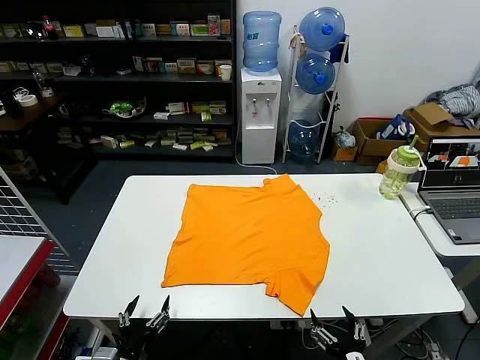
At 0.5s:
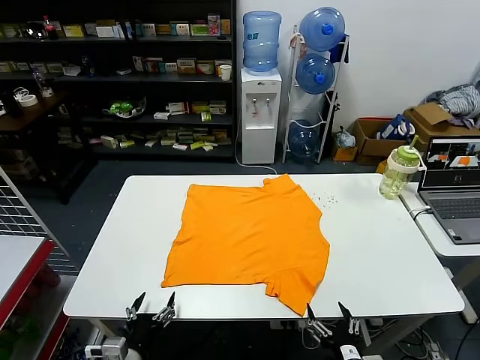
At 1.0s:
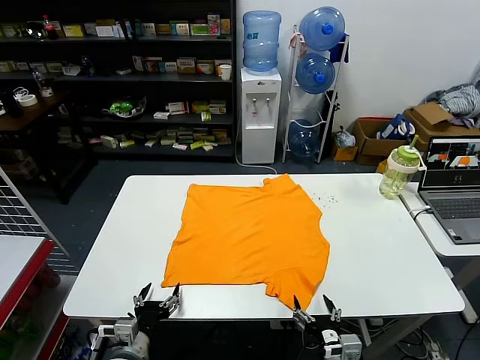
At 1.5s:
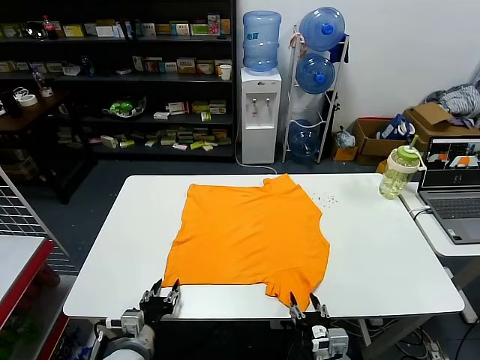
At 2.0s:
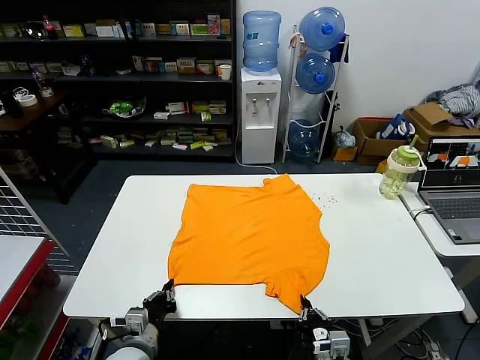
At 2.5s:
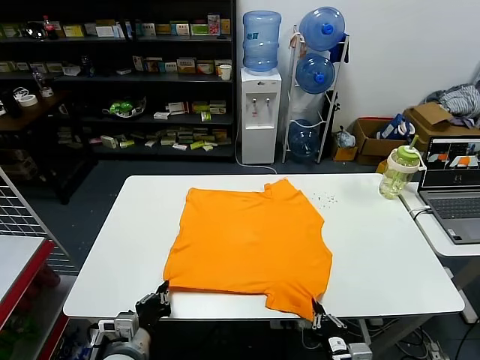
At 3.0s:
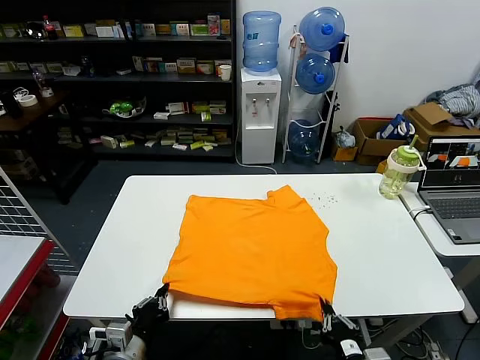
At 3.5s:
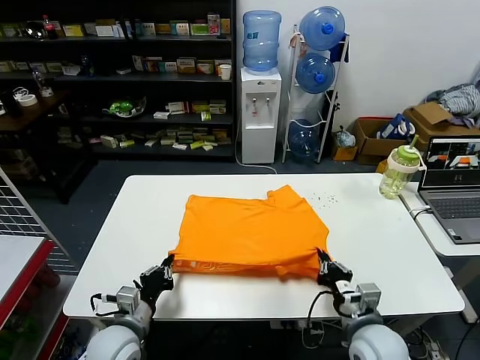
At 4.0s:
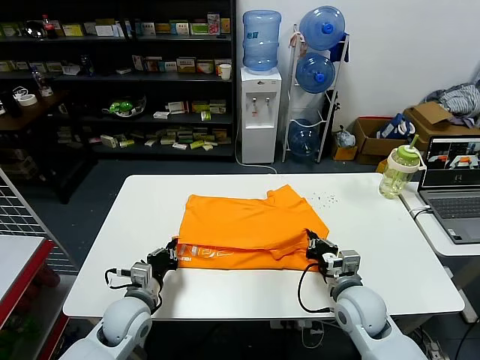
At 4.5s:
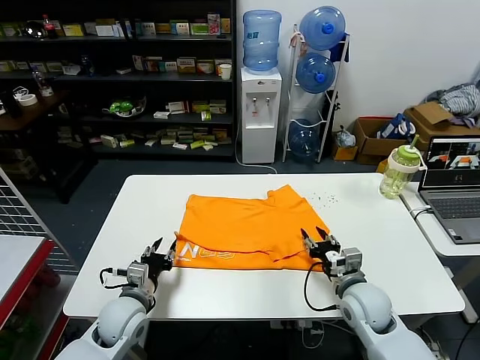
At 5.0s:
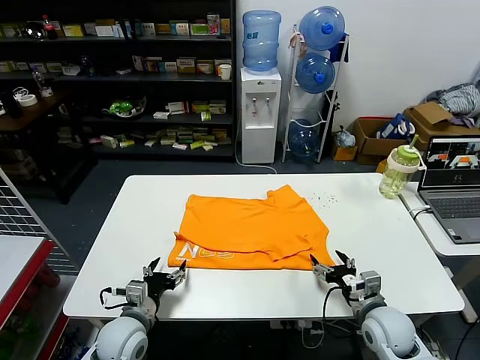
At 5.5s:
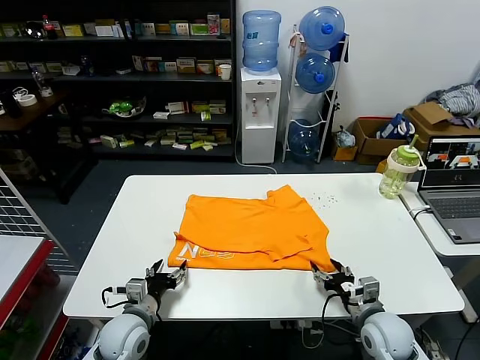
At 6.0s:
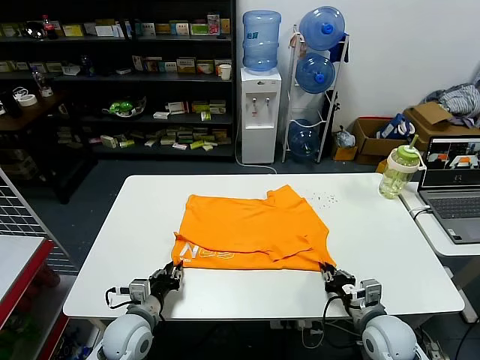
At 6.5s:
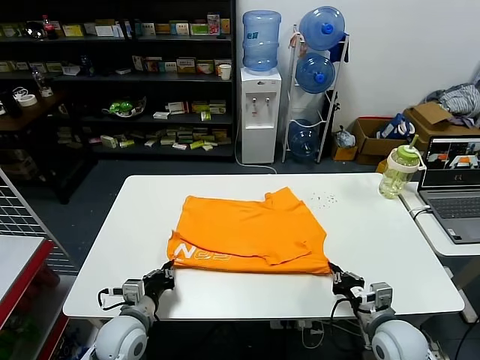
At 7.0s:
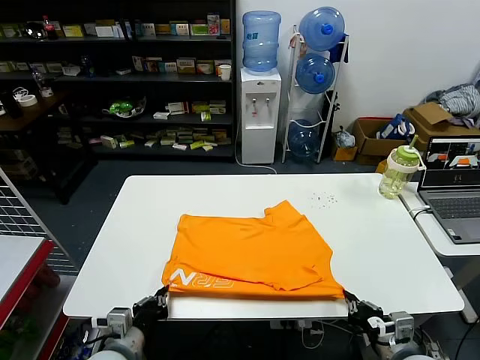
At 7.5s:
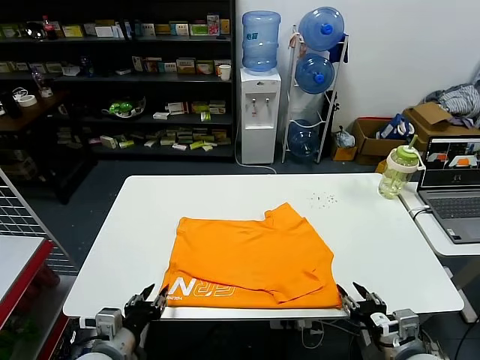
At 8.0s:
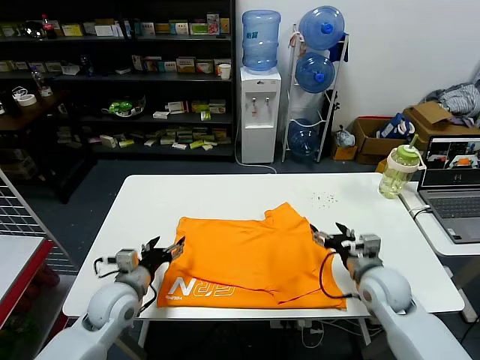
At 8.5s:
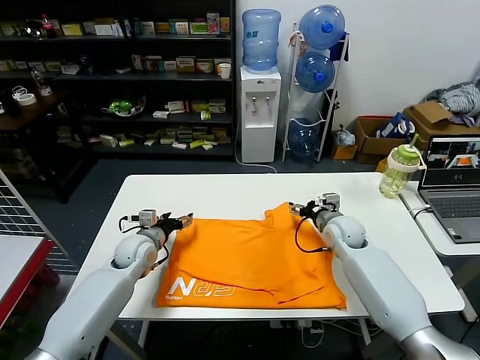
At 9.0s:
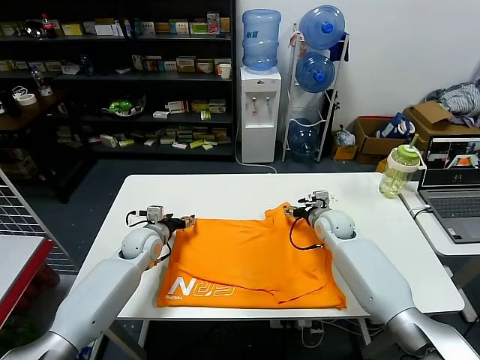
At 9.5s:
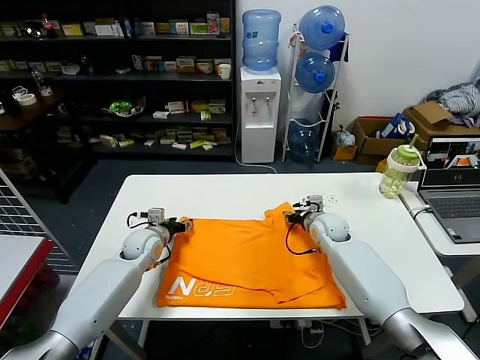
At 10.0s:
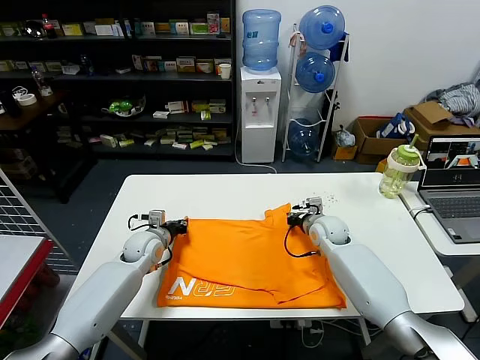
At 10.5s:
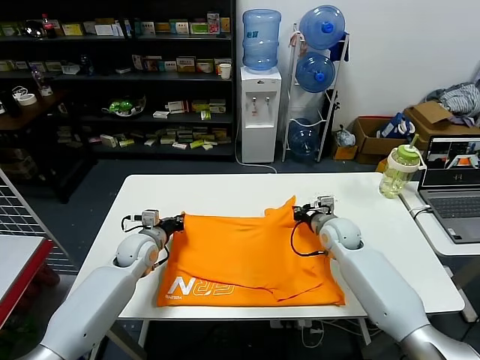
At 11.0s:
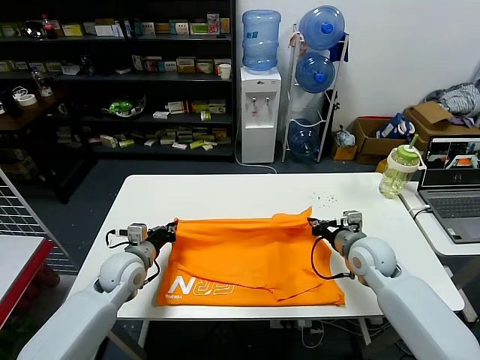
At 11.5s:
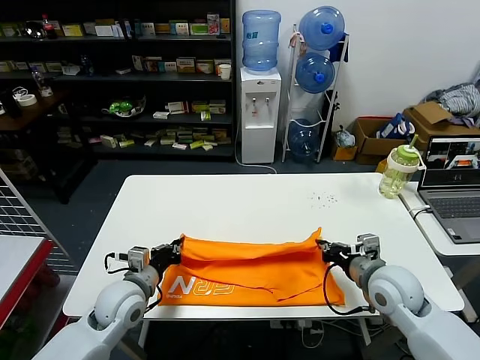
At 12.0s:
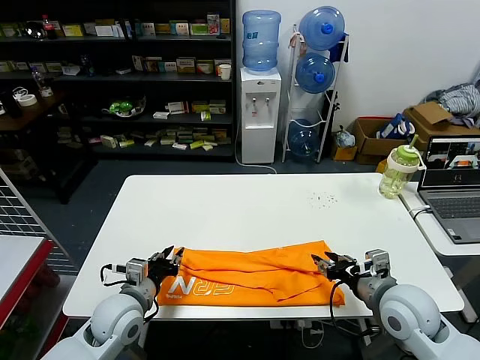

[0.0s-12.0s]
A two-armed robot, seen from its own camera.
Task of the whole recording: fold and organize the clothes.
Step, 0.0s to 2.0s: use both grippers simultaneously to clamp the lower edge of the clothing fabric.
Step, 2.5s to 4.0s: use both grippers to drag the lower edge of the fabric forward and fold it over the upper edge.
Step, 4.5s to 7.0s: Drag the clothes downward with both gripper.
Step, 7.5s to 10.0s: use both grippers simultaneously to clamp the upper edge of the clothing fabric.
Step, 10.5s to 11.5s: use both grippers to drag the upper edge of the fabric backward and fold it over the lower edge.
2.0s to 4.0s: The left gripper shifts some 10 cm forward. The right gripper moves forward and upward, about 15 cm.
4.0s to 6.0s: The left gripper opens. The right gripper heads to the right and backward, covering about 10 cm, and opens, then closes again.
6.0s to 8.0s: The left gripper shifts about 5 cm upward, moves about 10 cm backward and comes back, and opens its fingers. The right gripper goes approximately 10 cm forward and upward, and opens.
8.0s to 10.0s: The grippers both shift forward by about 15 cm. The right gripper closes up, while the left gripper closes its fingers.
10.0s to 12.0s: The two grippers go roughly 20 cm backward. The right gripper opens.

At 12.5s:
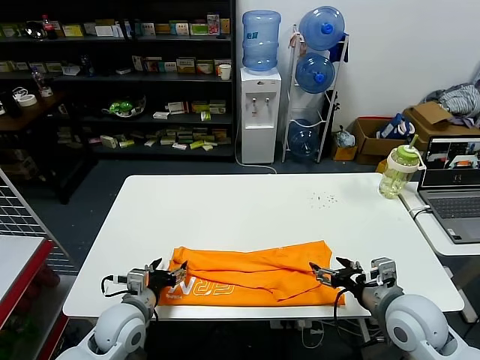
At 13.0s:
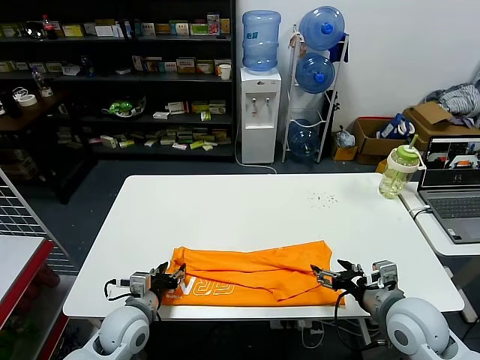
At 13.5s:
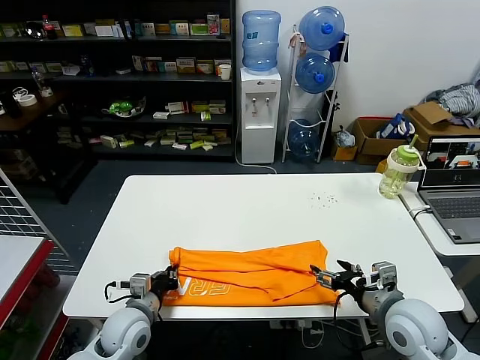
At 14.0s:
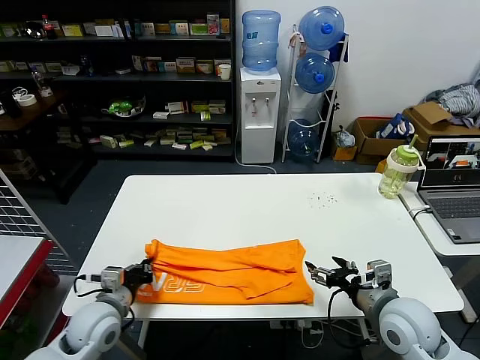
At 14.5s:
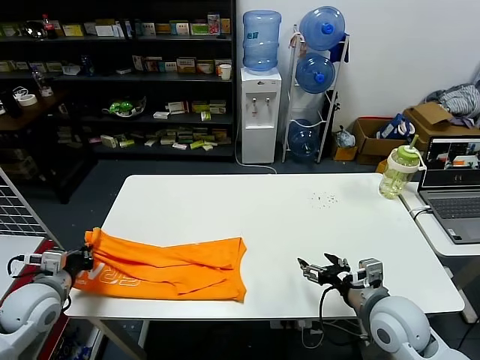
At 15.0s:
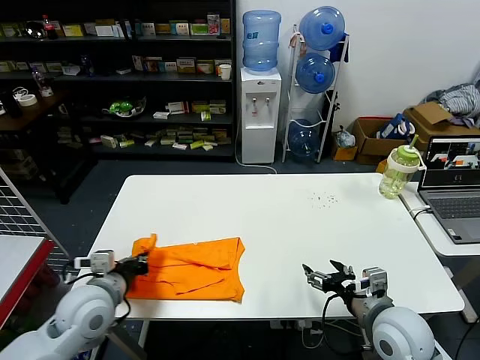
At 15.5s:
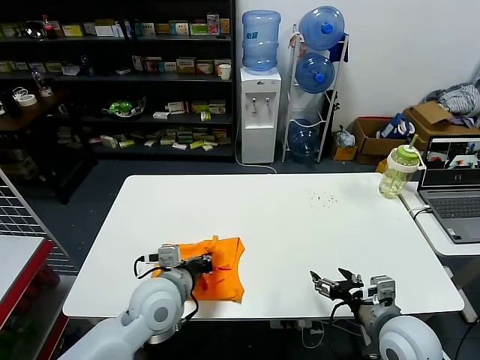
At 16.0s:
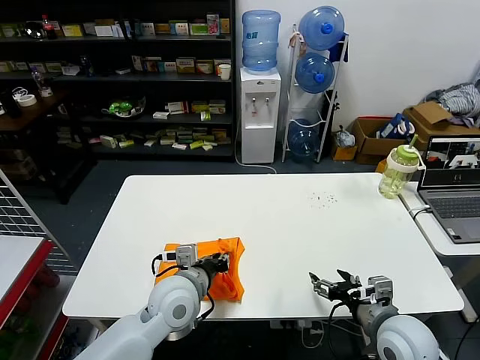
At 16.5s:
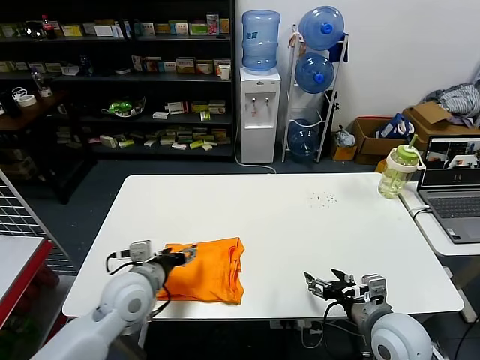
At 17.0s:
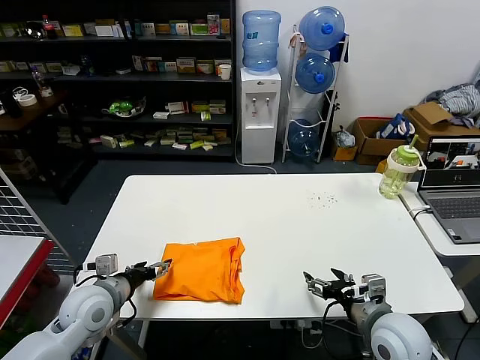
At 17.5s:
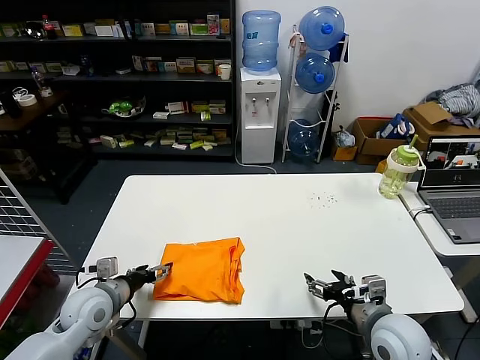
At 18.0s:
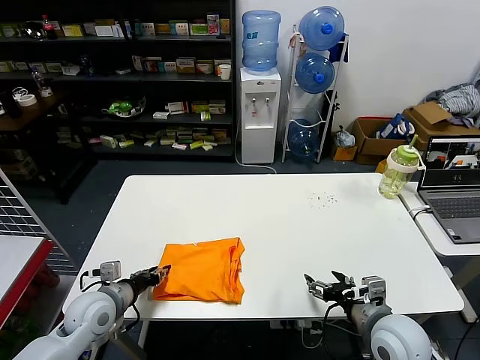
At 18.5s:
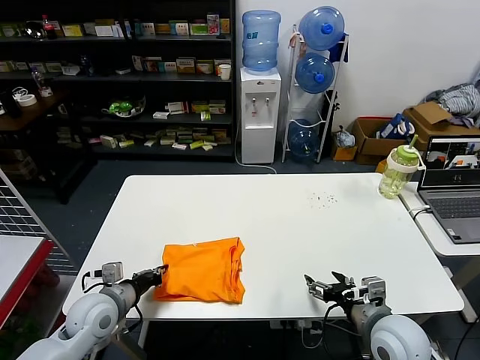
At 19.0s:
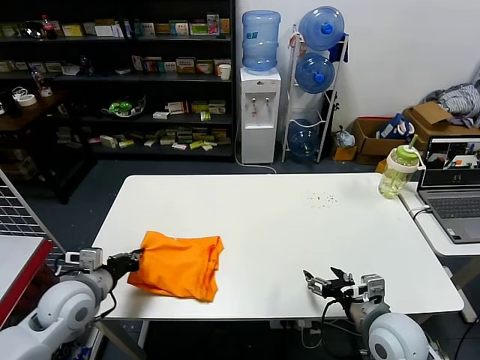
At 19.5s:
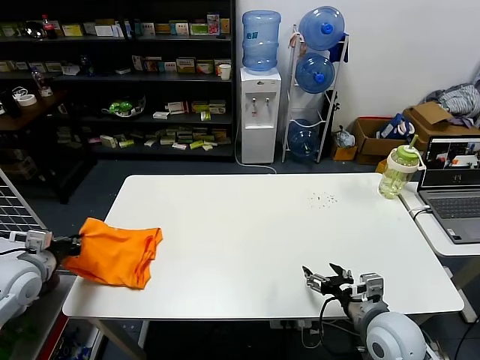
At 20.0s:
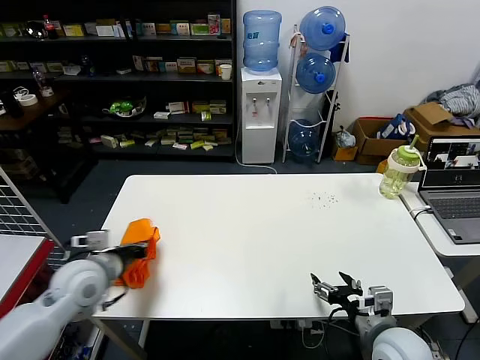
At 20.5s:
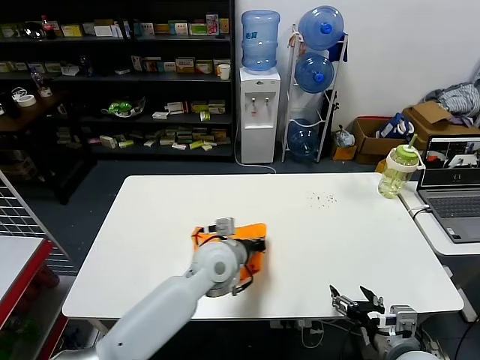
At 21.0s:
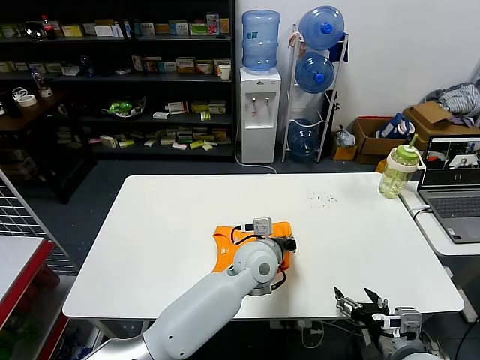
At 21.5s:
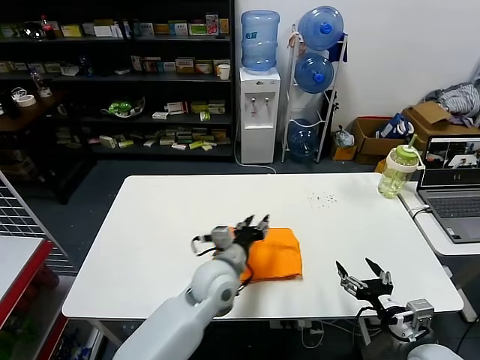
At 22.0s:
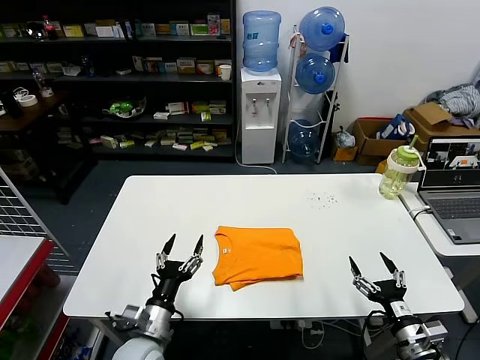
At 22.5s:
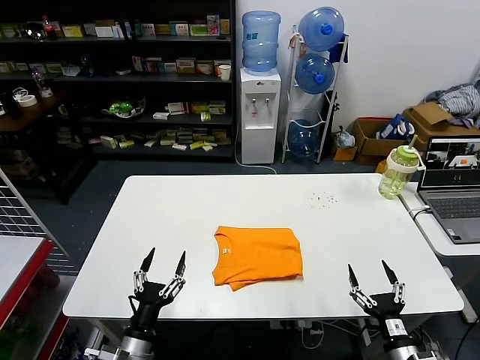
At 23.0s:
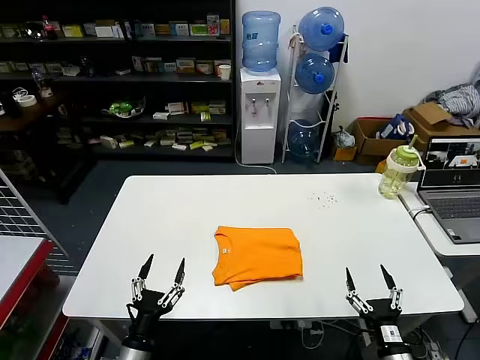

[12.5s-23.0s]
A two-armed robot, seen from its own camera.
Task of the whole recording: fold and organize the clothes.
Step, 12.5s to 13.5s: use the left gripper to clamp the left edge of the fabric.
Step, 14.0s to 16.0s: use the left gripper to drag the left edge of the fabric to the left and folds it over the right edge.
Step, 16.5s to 21.0s: Flip the folded clothes over with left gripper.
12.5s to 14.5s: The left gripper travels to the left and upward by roughly 15 cm, and closes up.
14.5s to 16.5s: The left gripper shifts about 20 cm to the right, and opens its fingers.
16.5s to 19.0s: The left gripper goes some 15 cm to the left, and closes up.
19.0s to 21.0s: The right gripper travels backward by roughly 5 cm. The left gripper is displaced to the right by approximately 35 cm.
21.0s to 23.0s: The right gripper moves downward, roughly 10 cm. Meanwhile the left gripper is displaced to the left, backward and downward by about 35 cm, and opens its fingers.

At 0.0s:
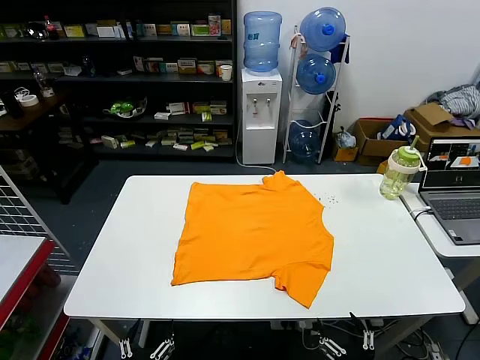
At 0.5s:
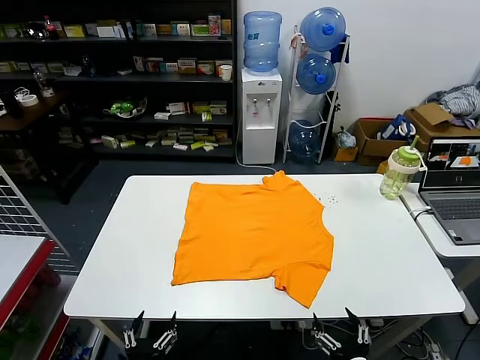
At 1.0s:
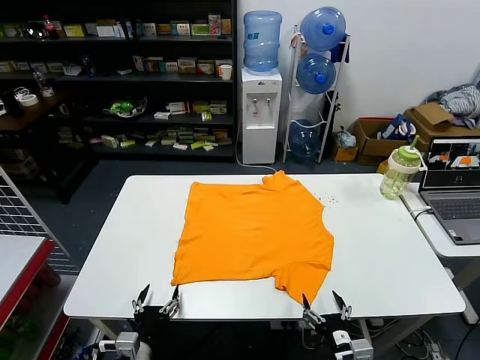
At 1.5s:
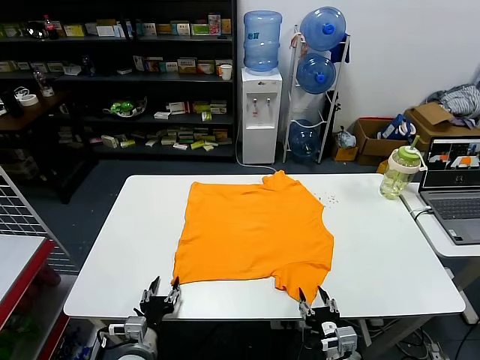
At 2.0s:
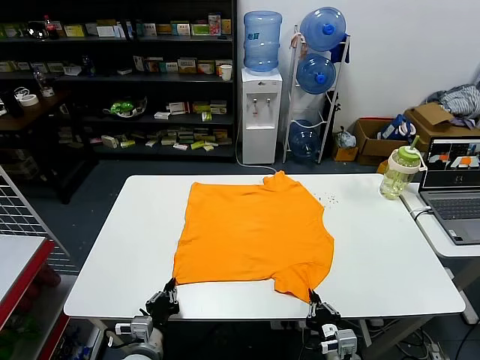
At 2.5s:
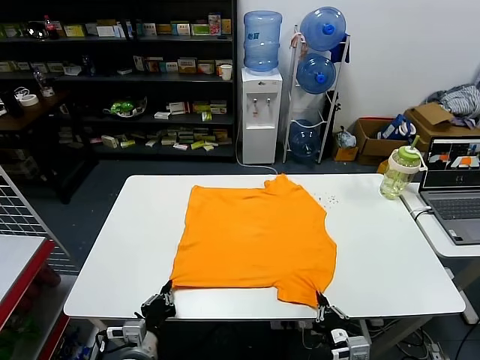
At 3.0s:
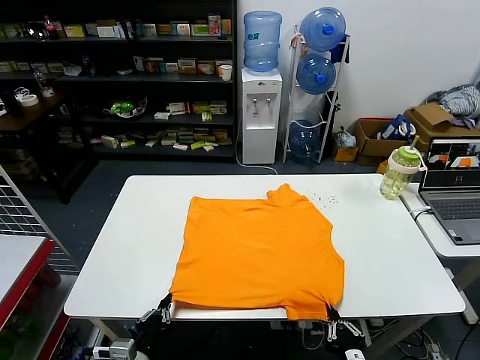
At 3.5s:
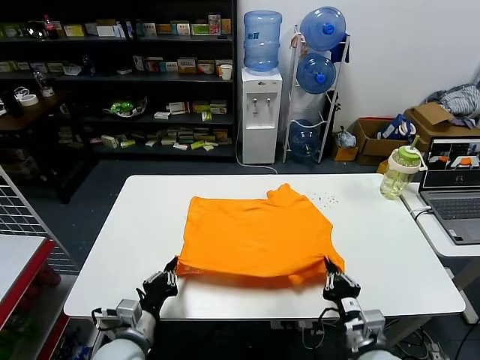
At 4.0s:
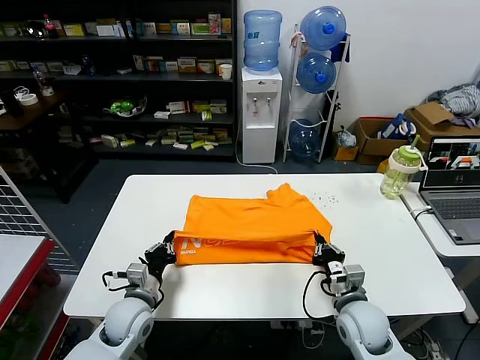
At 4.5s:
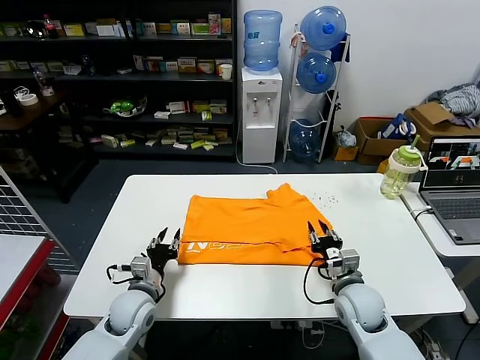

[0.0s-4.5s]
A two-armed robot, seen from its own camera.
Task of the whole recording: fold and organize the clothes.
Step, 0.0s to 2.0s: use both grippers simultaneously to clamp the lower edge of the clothing fabric.
Step, 2.5s to 4.0s: use both grippers to drag the lower edge of the fabric forward and fold it over the upper edge.
2.0s to 4.5s: The grippers both shift forward by roughly 15 cm. The left gripper opens up; the right gripper opens up.
